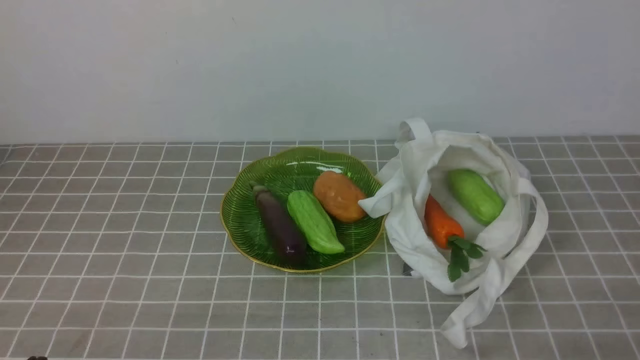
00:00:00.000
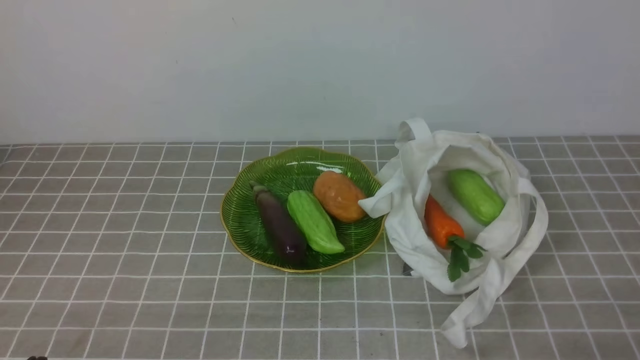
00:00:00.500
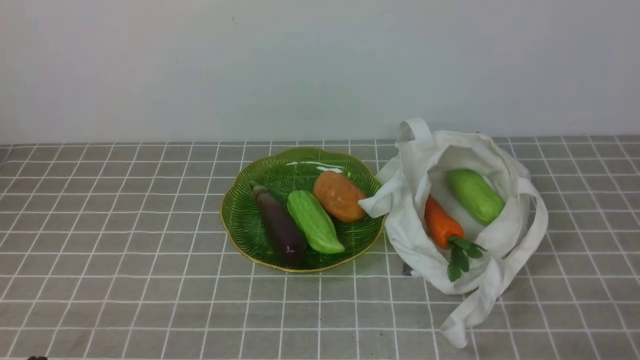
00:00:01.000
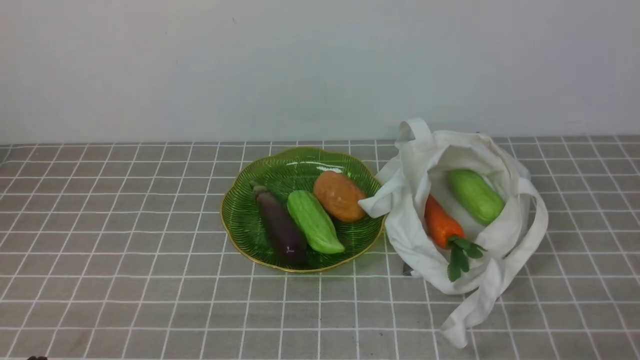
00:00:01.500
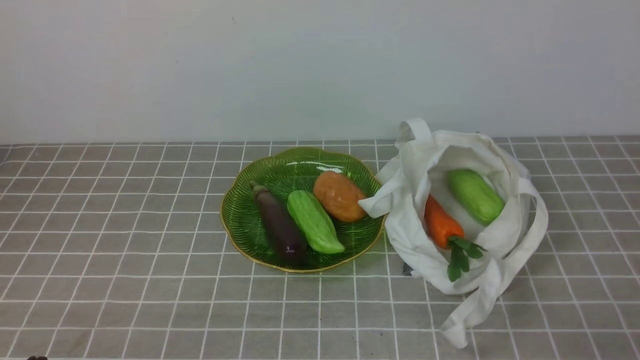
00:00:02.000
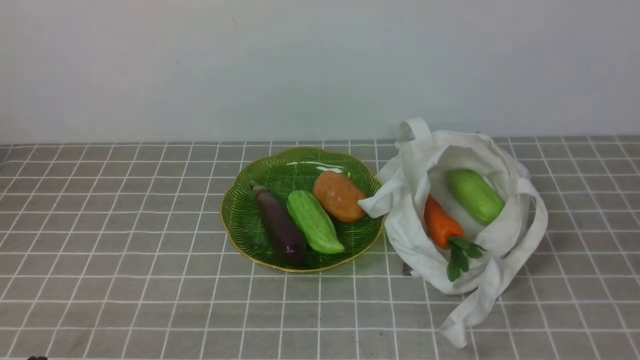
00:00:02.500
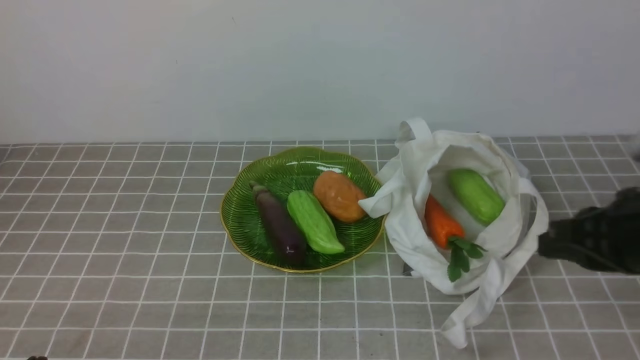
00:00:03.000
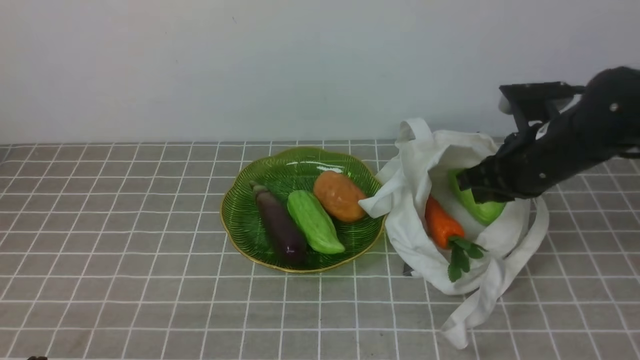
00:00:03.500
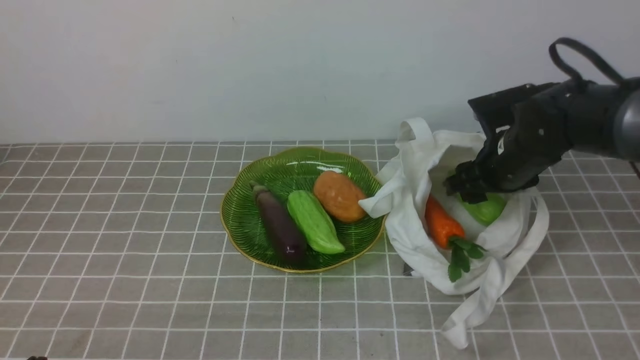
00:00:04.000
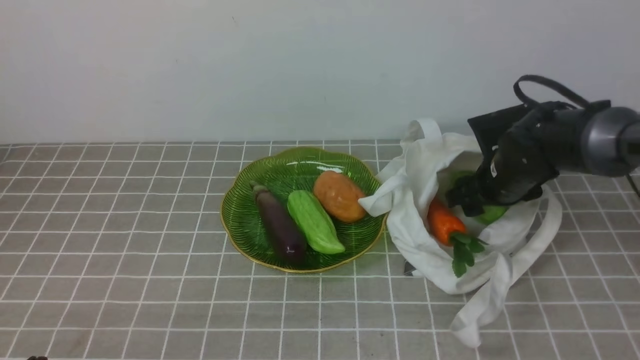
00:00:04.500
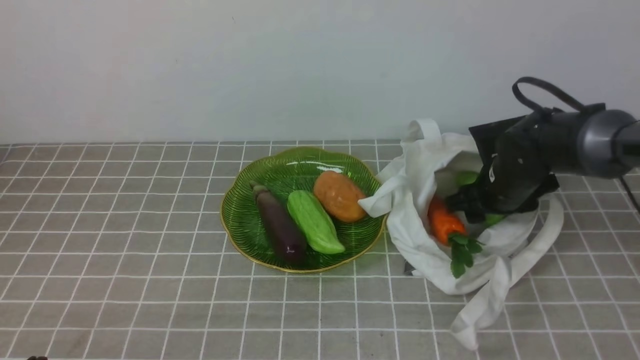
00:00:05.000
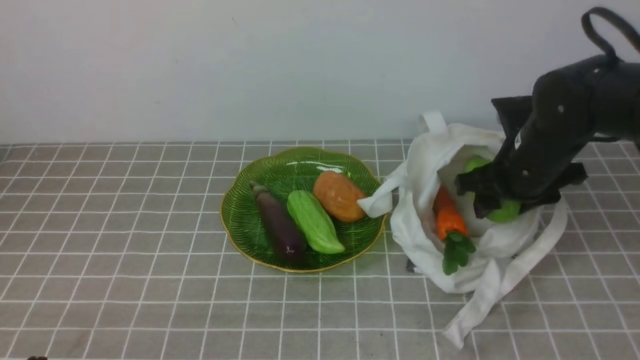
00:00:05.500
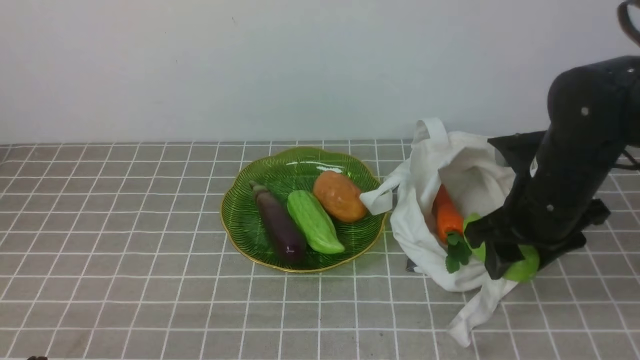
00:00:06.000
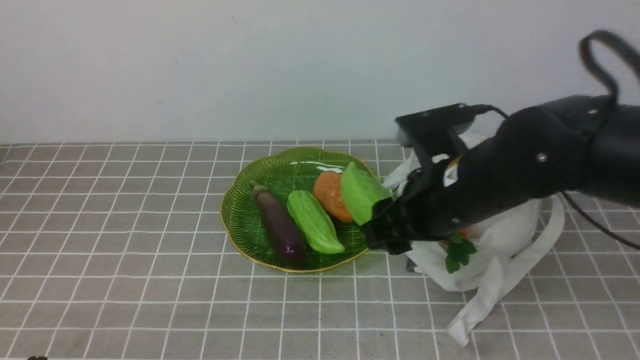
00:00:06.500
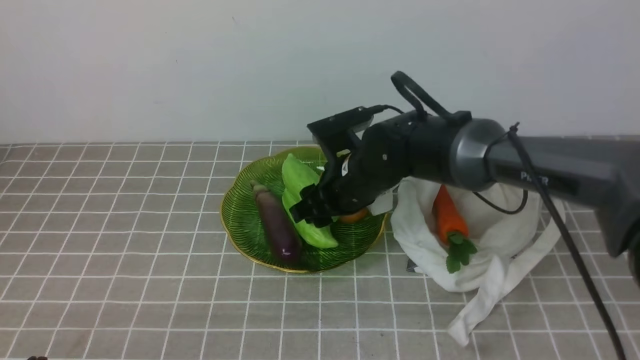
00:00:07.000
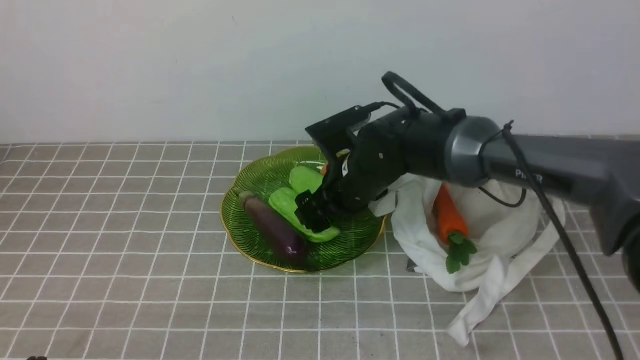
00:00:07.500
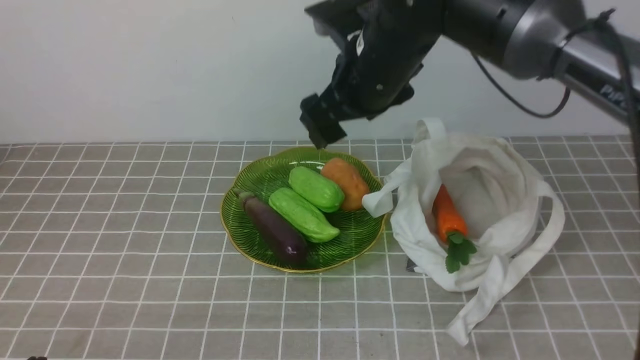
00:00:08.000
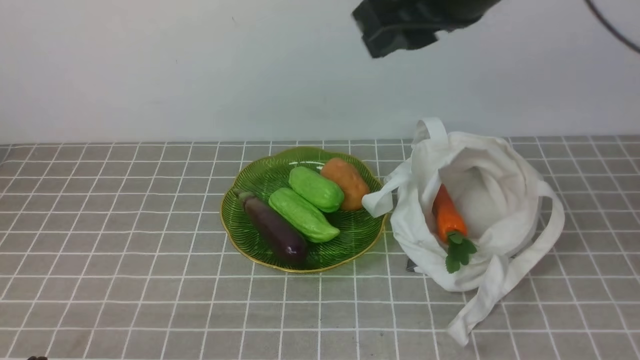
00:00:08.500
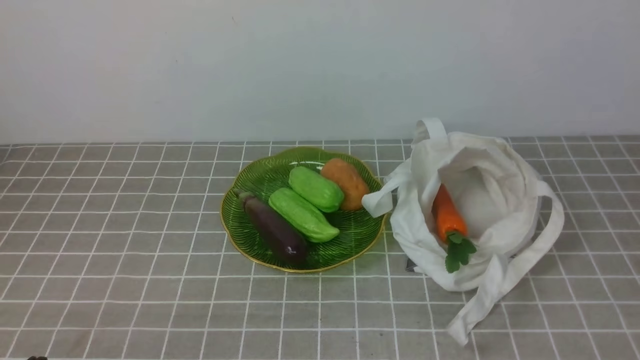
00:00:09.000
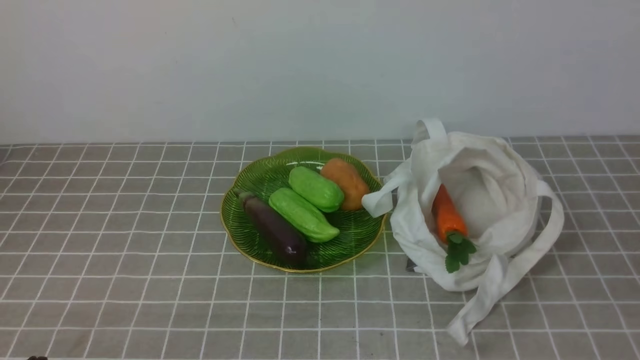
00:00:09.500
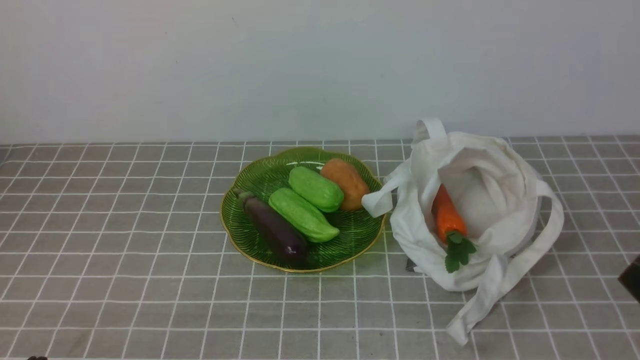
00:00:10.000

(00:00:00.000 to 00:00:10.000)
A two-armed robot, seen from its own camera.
Task of the whole recording: take vegetables from bag on grey coffee tablecloth place on plate.
Step, 00:00:00.000 - 00:00:04.500: Grasp the bitter melon with right gripper.
Step, 00:00:05.000 - 00:00:07.500: Place the bitter melon on the plate with right gripper.
00:00:02.000 - 00:00:04.000: The right gripper is displaced forward by roughly 35 cm, and opens its fingers.
00:00:04.000 - 00:00:06.000: The right gripper moves backward and upward, some 10 cm.
00:00:06.000 - 00:00:08.000: The right gripper is displaced to the left, upward and forward by approximately 20 cm.
00:00:08.000 - 00:00:10.000: The right gripper goes about 35 cm backward and to the right, and closes its fingers.

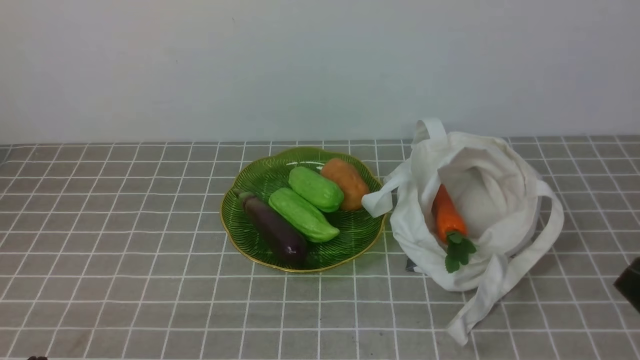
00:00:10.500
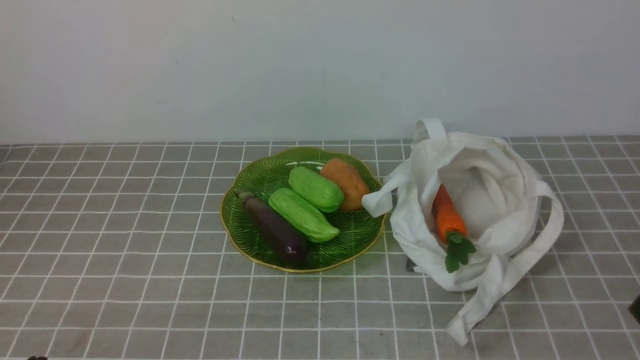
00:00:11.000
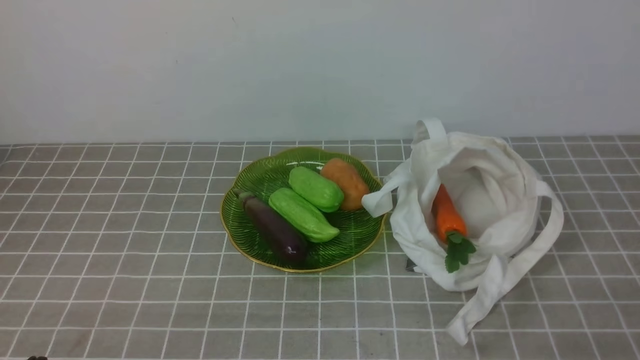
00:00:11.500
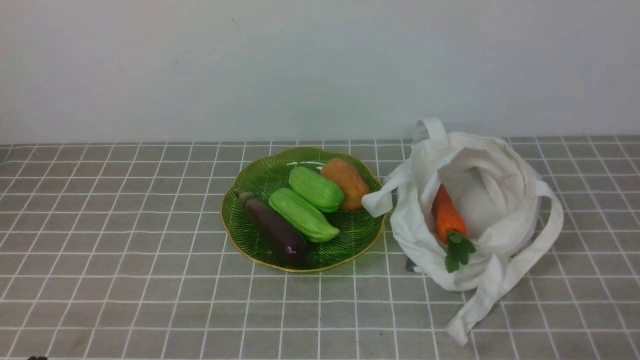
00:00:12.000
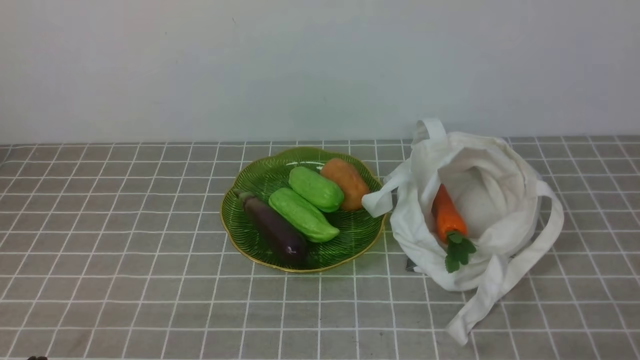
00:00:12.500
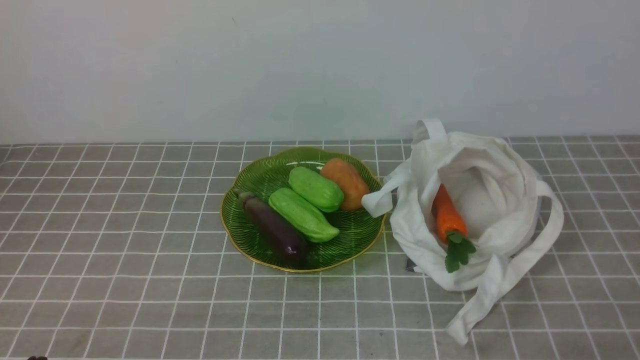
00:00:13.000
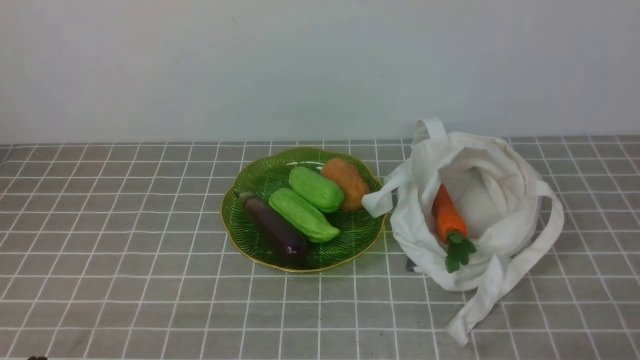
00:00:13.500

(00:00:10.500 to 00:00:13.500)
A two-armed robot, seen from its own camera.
Task of the whole recording: take vegetables from bag on grey coffee tablecloth place on plate.
00:00:12.000 - 00:00:13.500: Neither gripper changes place.
